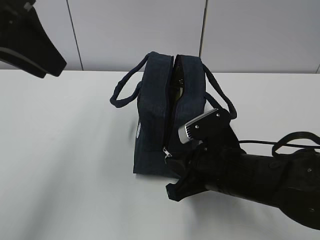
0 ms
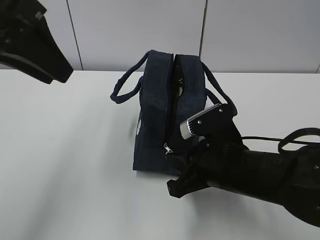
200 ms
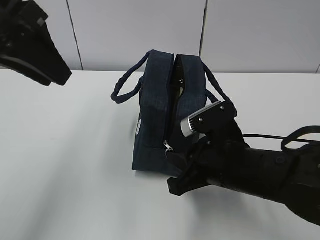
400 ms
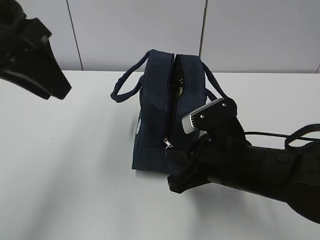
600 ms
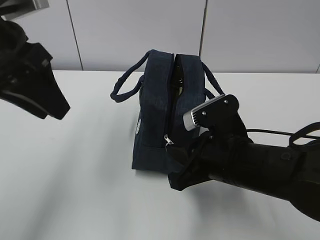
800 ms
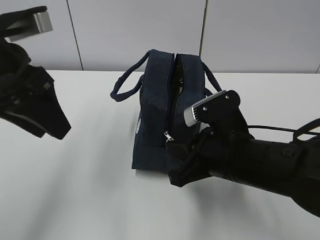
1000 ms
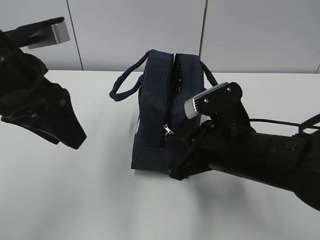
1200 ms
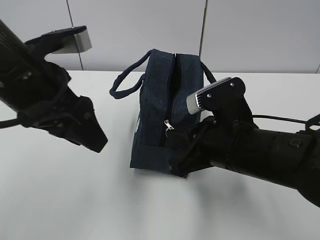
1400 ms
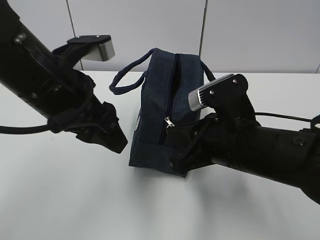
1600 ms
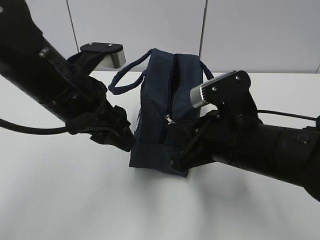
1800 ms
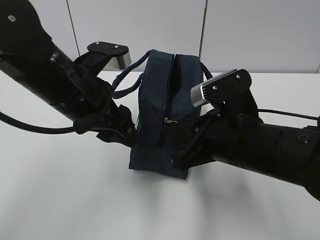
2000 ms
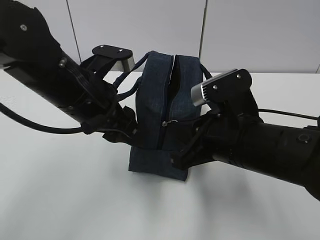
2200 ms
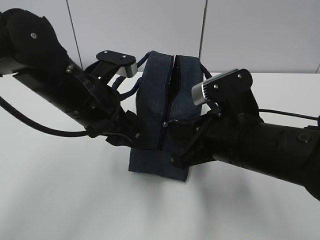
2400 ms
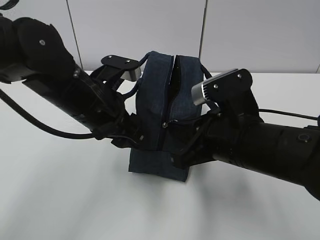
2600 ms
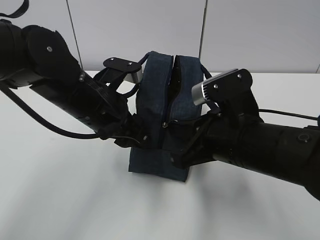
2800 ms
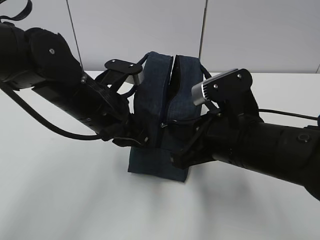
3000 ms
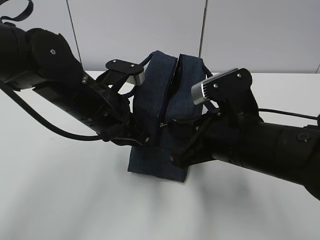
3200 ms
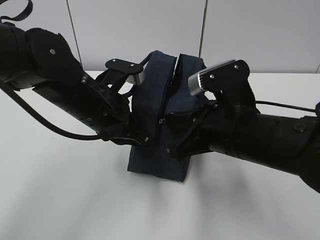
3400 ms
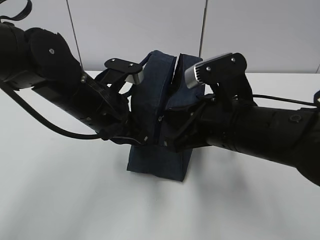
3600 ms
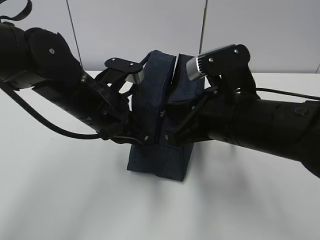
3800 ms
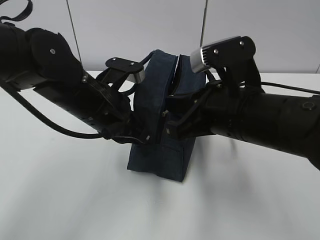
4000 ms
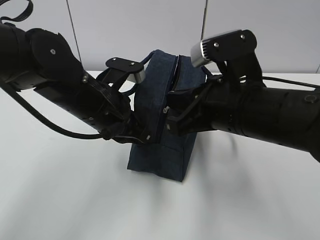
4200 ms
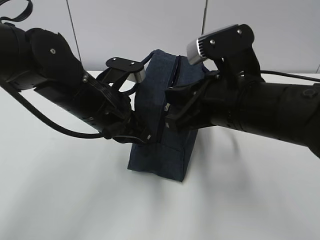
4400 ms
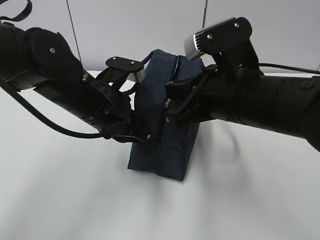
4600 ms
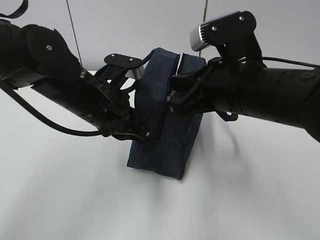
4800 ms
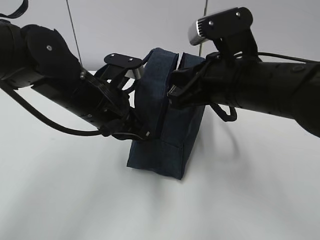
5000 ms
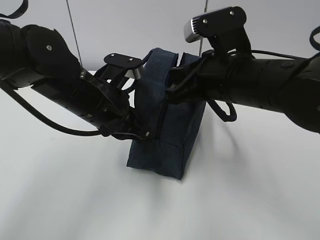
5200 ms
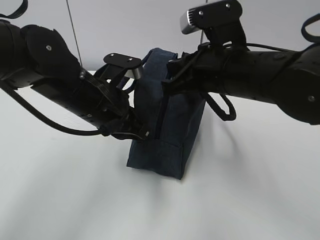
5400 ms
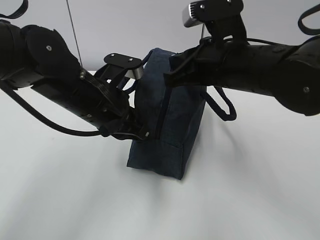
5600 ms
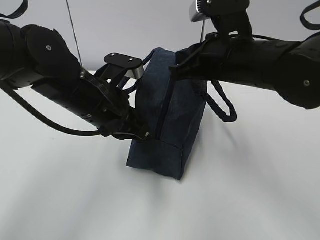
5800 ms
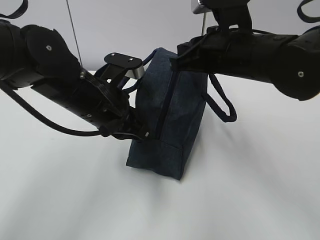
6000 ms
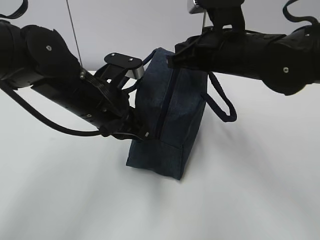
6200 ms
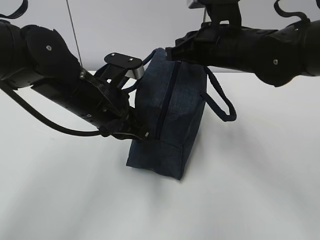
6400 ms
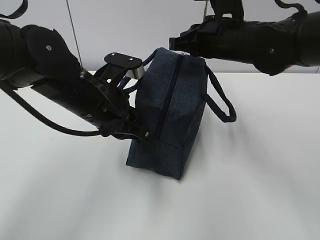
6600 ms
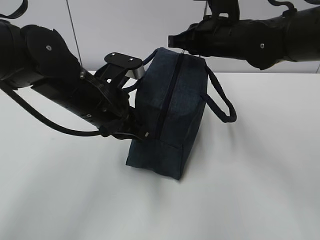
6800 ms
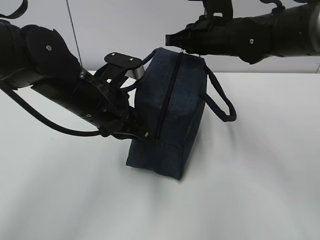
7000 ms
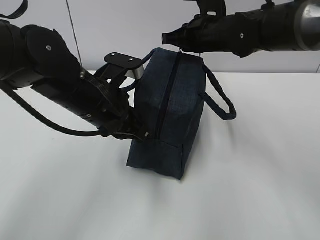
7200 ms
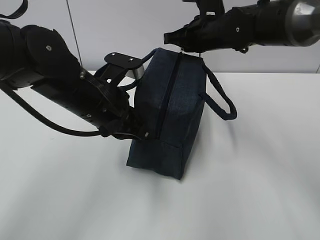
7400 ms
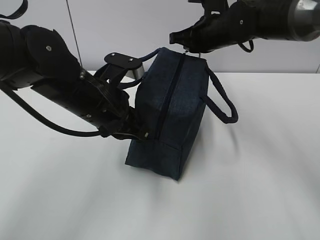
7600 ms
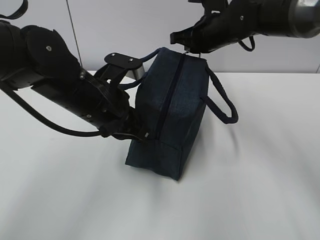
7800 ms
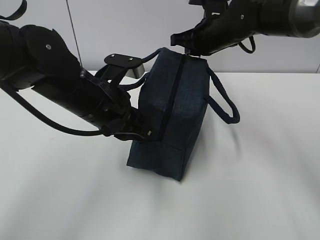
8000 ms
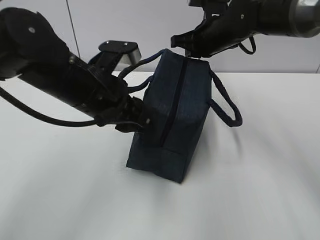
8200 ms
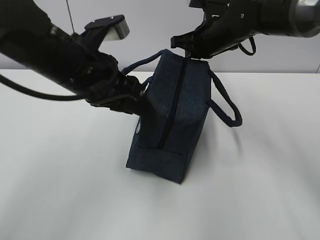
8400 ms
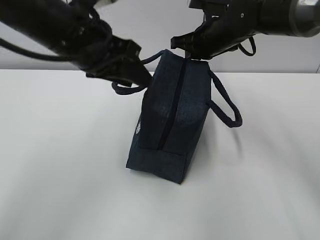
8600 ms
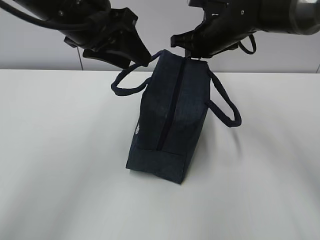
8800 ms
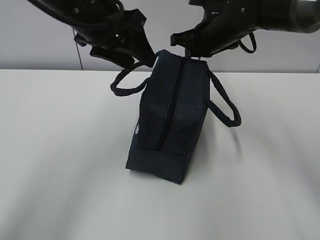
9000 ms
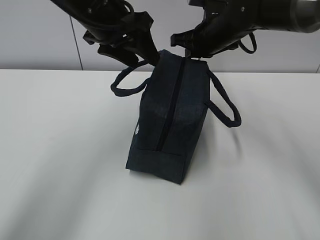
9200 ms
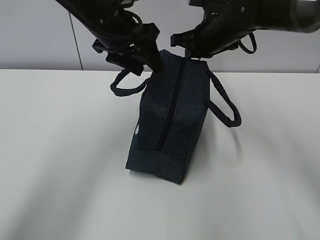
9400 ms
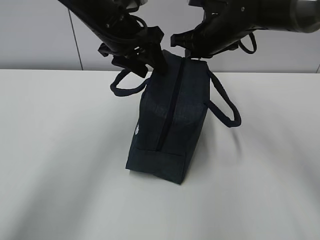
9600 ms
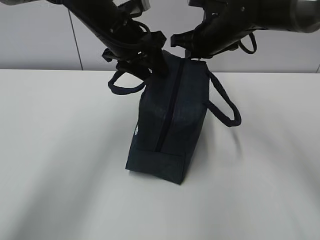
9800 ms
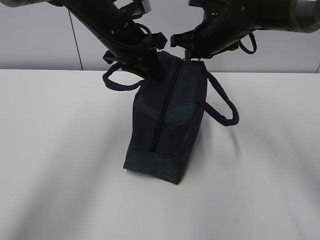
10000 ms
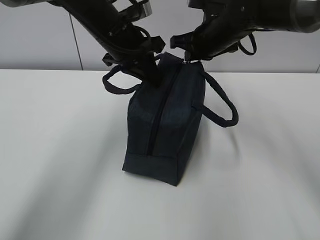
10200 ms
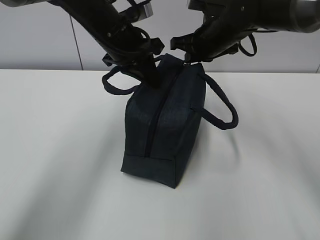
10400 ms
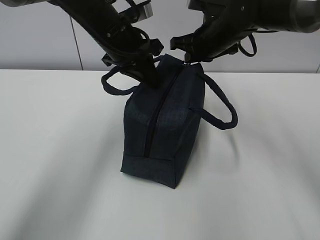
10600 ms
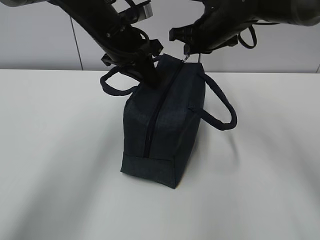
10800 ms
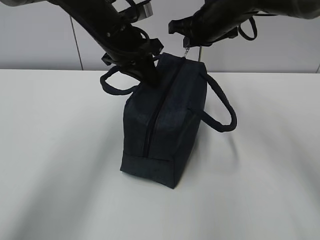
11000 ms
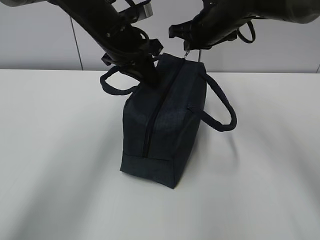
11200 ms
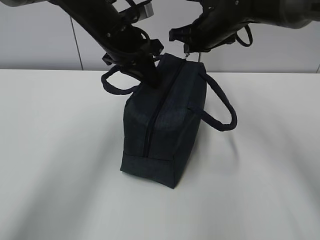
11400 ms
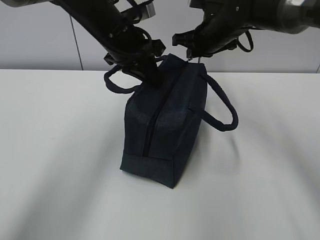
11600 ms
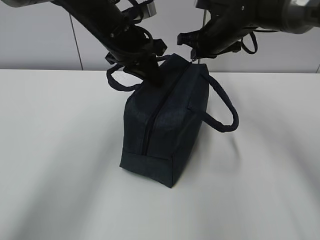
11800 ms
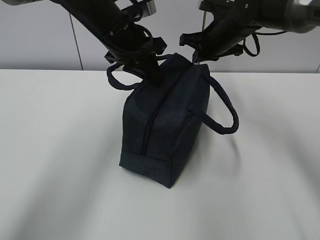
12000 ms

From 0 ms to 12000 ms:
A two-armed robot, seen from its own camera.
Step, from 0 ms to 2400 ms: Pull the zipper with your right hand.
Step, from 2600 ms to 3000 ms: Grab the lunch bag with your left hand.
From 0 ms to 1600 ms: The left gripper travels downward and to the right by approximately 15 cm, while the right gripper heads upward, covering some 5 cm.
From 1600 ms to 3000 ms: The left gripper shifts roughly 5 cm downward, and closes.
From 3000 ms to 4400 ms: The right gripper changes place by about 5 cm. The left gripper closes its fingers.
From 4400 ms to 6000 ms: The right gripper shifts approximately 10 cm forward.
From 6000 ms to 7600 ms: The right gripper goes approximately 15 cm forward.
From 7600 ms to 9000 ms: The left gripper travels upward and forward by approximately 15 cm, and opens.
From 9000 ms to 10400 ms: The left gripper moves downward and forward, approximately 10 cm, and closes its fingers.
From 10400 ms to 12000 ms: The grippers move only a little.

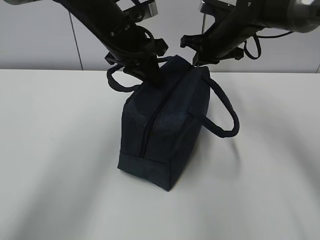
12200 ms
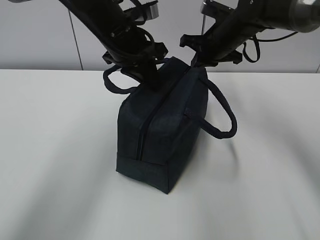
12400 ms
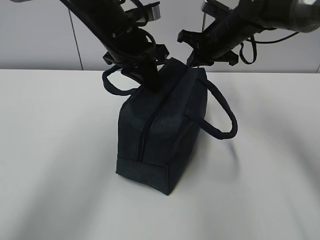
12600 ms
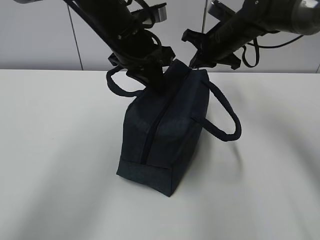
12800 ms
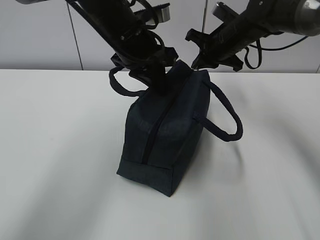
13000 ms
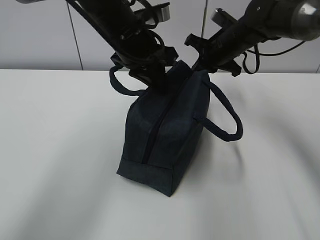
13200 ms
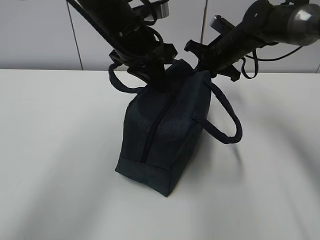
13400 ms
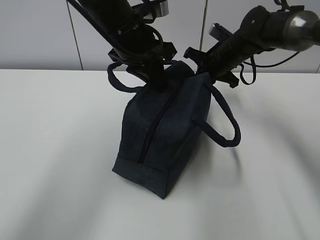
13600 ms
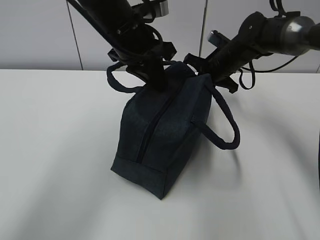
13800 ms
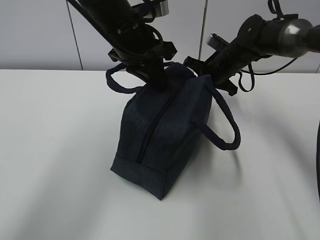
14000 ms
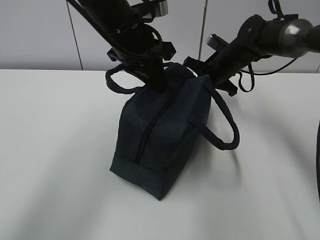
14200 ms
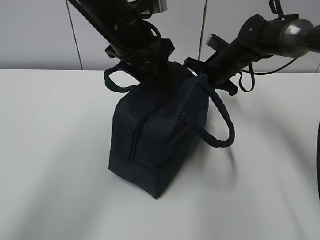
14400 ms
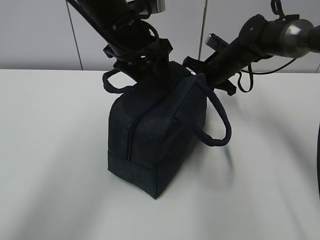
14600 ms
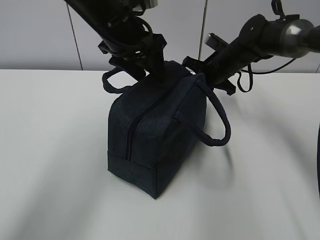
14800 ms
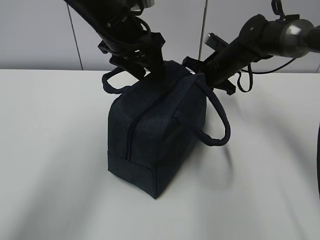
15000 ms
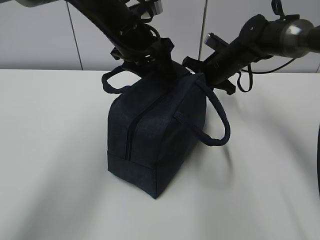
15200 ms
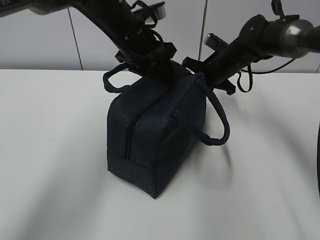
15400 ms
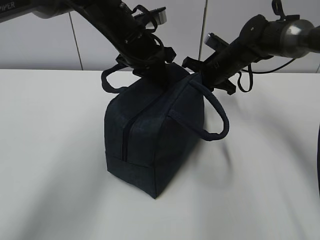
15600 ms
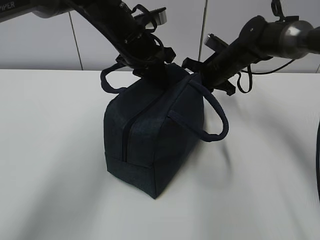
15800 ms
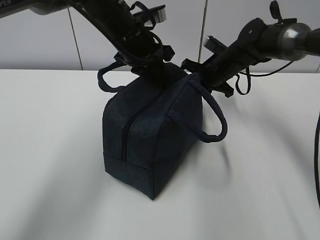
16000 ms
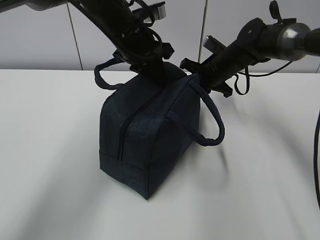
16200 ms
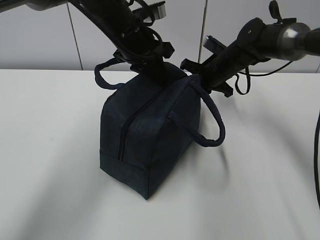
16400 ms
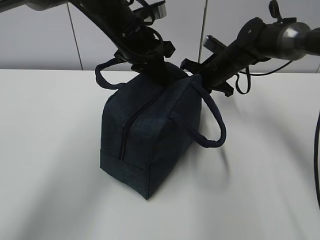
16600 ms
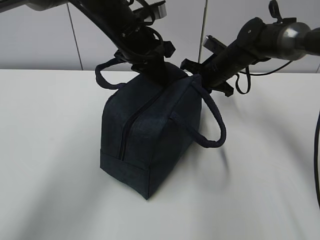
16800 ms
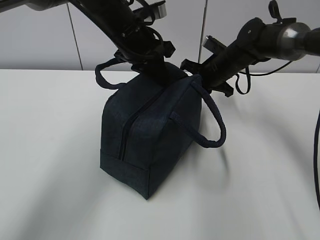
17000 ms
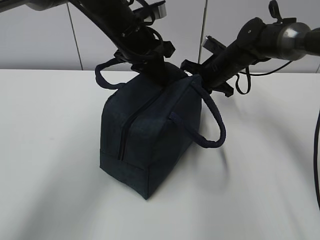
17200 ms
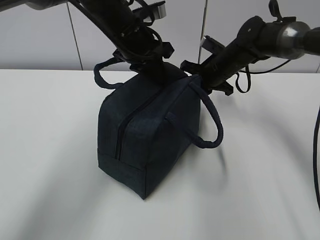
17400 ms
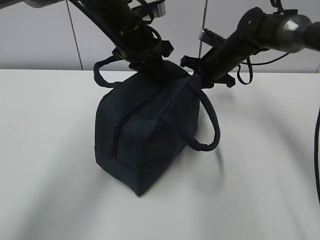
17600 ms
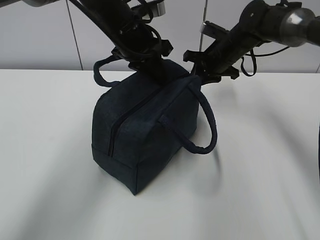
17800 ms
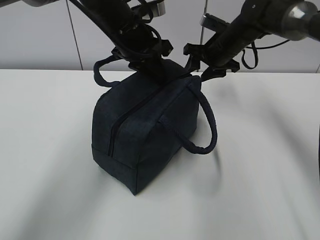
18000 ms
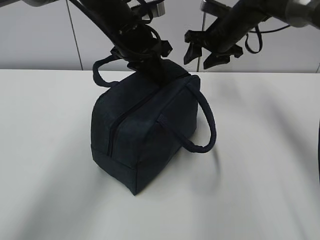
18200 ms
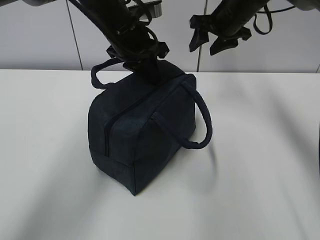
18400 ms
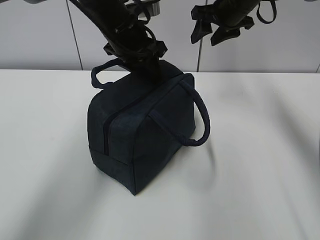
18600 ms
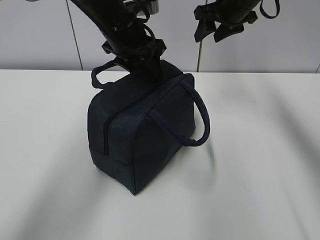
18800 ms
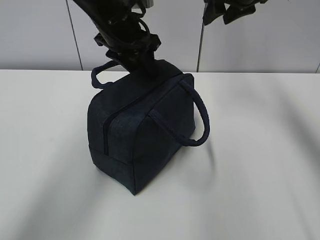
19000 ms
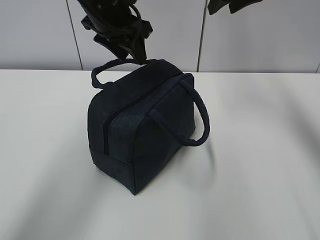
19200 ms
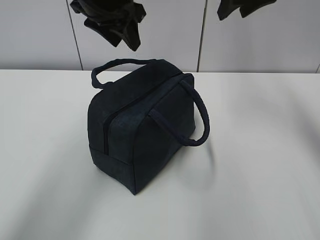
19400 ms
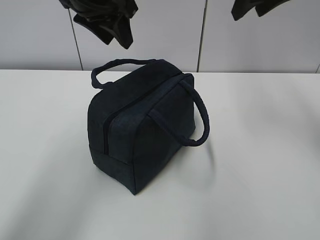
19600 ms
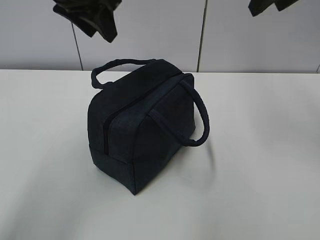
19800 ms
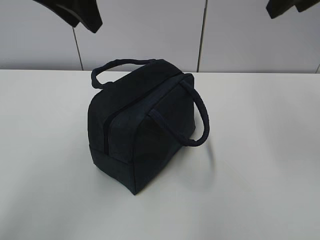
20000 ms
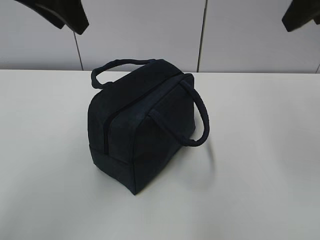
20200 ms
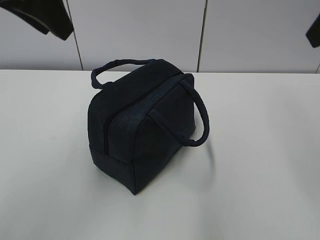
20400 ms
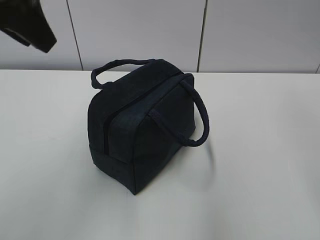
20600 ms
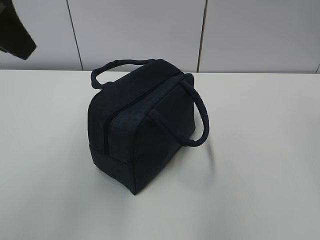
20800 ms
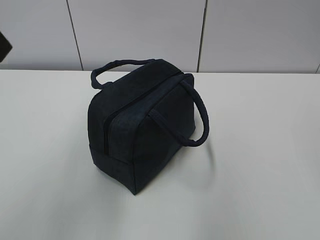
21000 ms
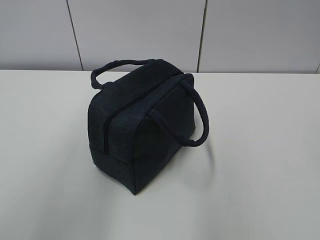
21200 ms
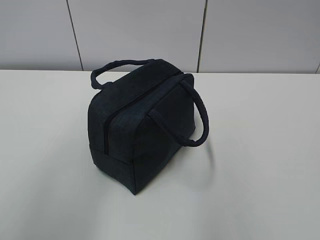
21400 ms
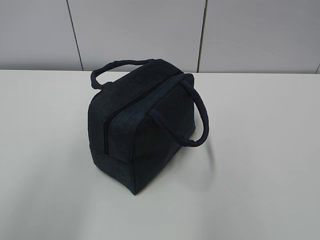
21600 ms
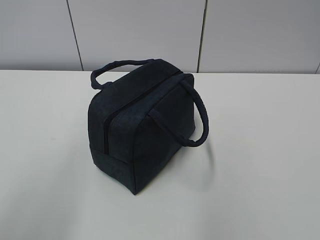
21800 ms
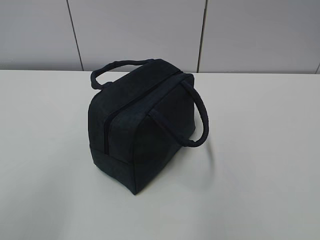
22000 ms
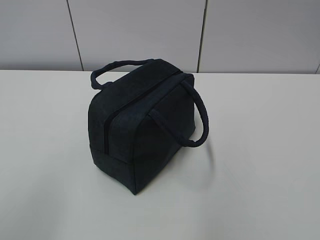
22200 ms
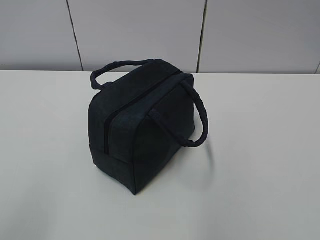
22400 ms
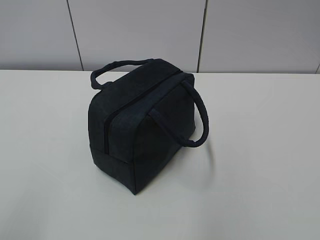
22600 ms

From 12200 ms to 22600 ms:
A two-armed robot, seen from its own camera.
From 12200 ms to 13600 ms: The right gripper ends up about 5 cm from where it was.
From 13600 ms to 15200 ms: The left gripper opens up.
From 15200 ms to 16600 ms: The left gripper closes.
From 16600 ms to 18200 ms: The right gripper goes roughly 5 cm upward, and opens.
From 18200 ms to 19600 ms: The left gripper travels upward by some 10 cm, and opens up. The right gripper moves upward and backward, approximately 20 cm.
From 19600 ms to 21200 ms: The right gripper heads backward, covering roughly 35 cm. The left gripper moves backward and to the left, roughly 25 cm.
From 21200 ms to 22600 ms: The left gripper is displaced backward, downward and to the left by about 25 cm.
